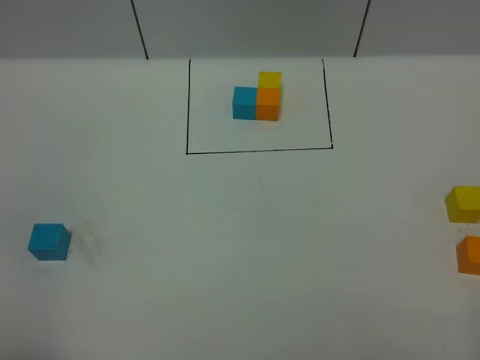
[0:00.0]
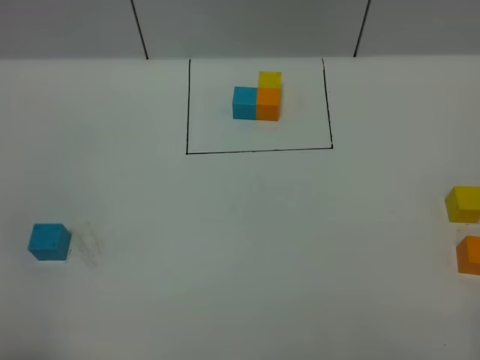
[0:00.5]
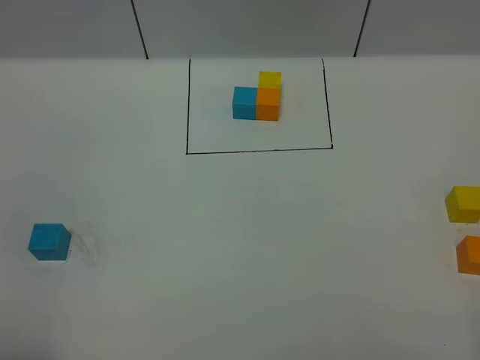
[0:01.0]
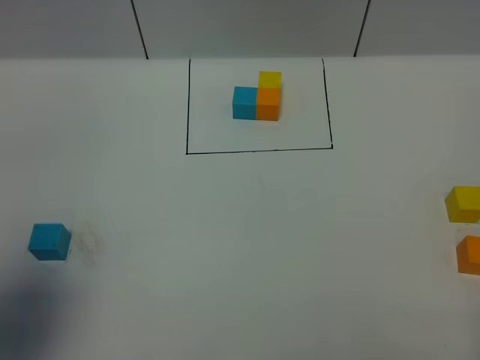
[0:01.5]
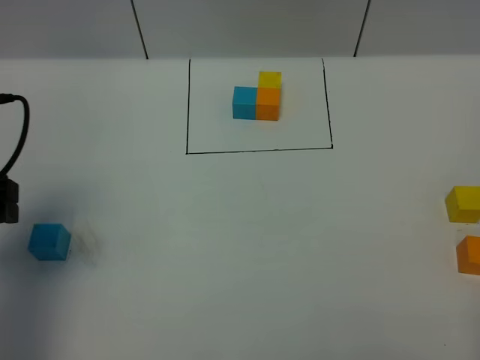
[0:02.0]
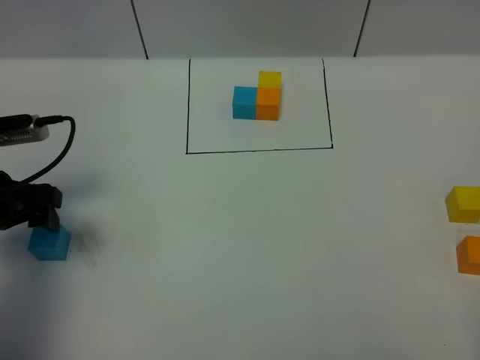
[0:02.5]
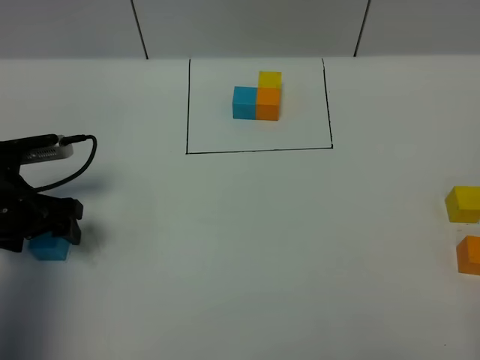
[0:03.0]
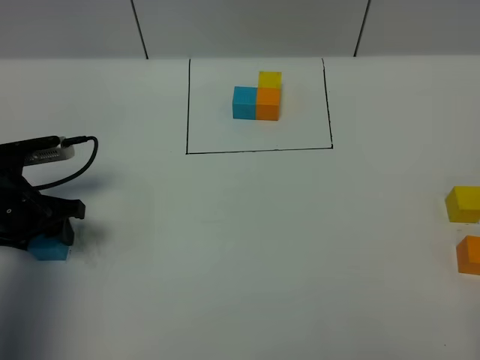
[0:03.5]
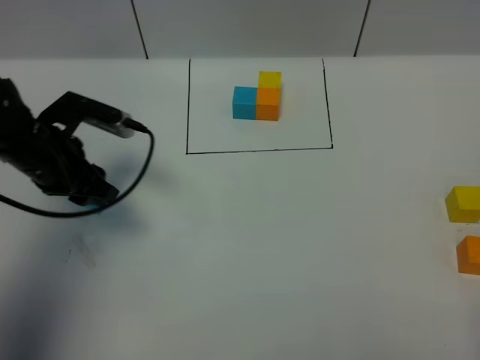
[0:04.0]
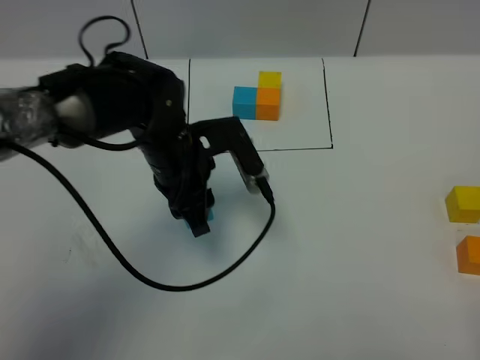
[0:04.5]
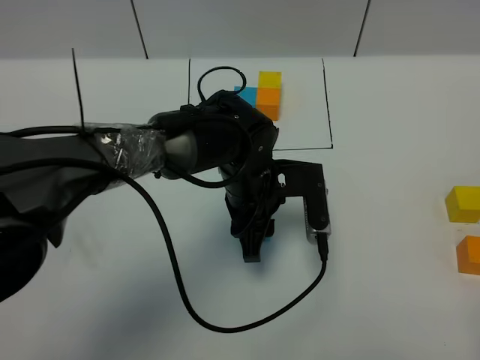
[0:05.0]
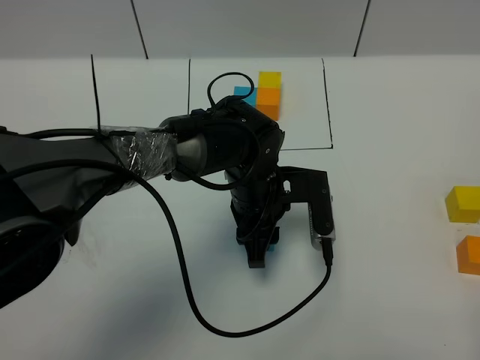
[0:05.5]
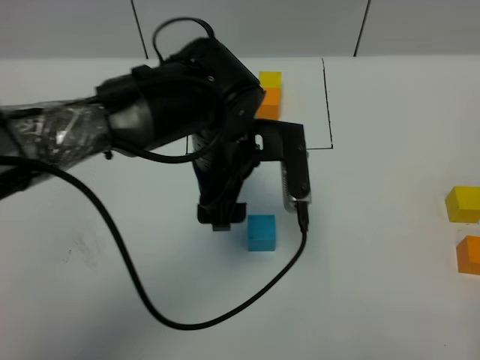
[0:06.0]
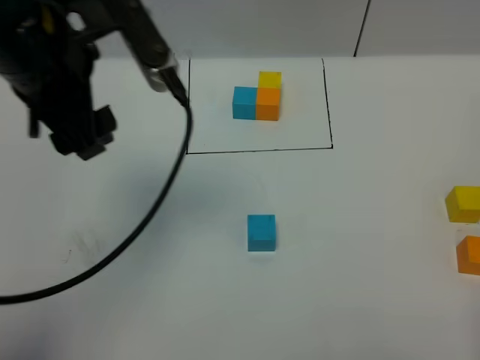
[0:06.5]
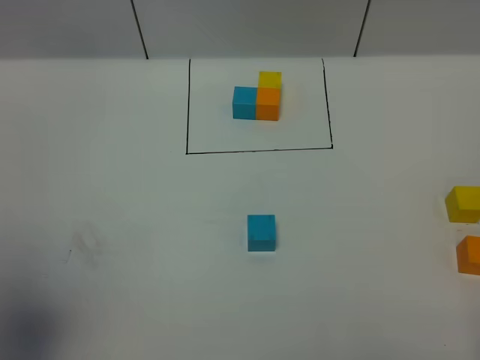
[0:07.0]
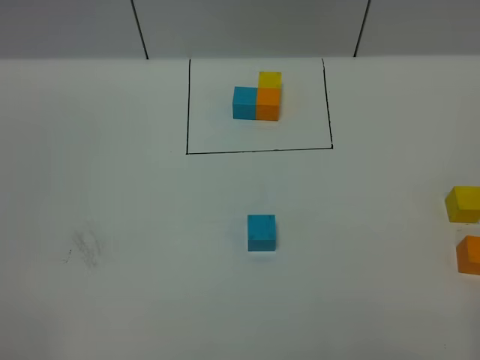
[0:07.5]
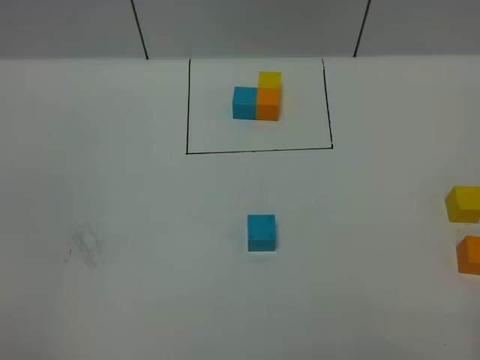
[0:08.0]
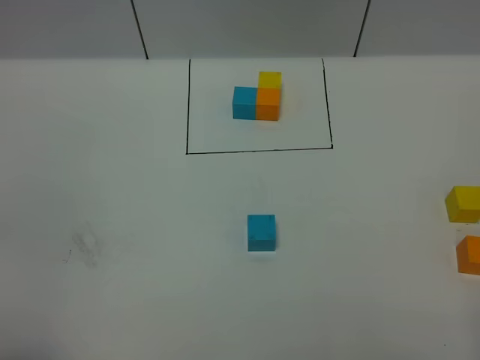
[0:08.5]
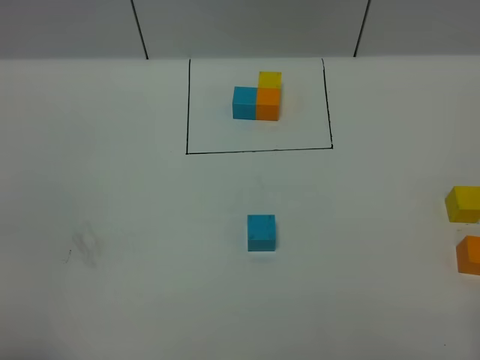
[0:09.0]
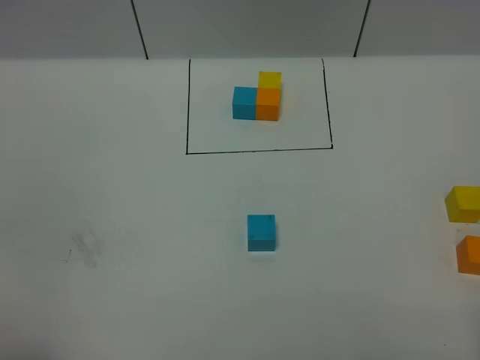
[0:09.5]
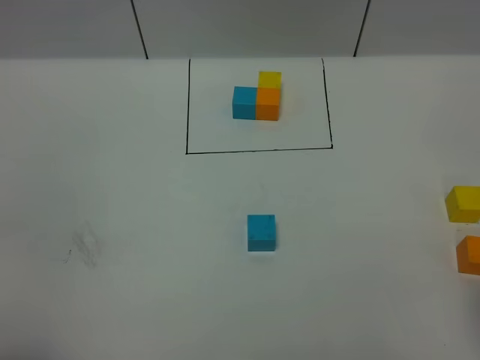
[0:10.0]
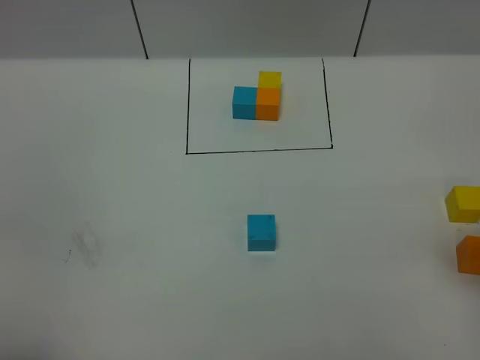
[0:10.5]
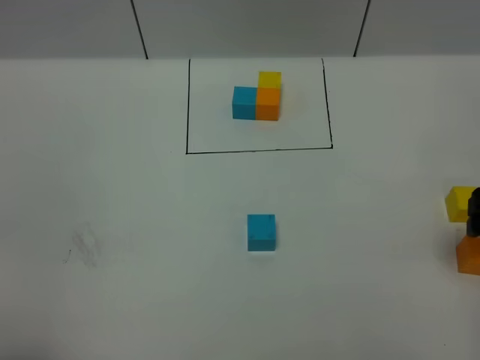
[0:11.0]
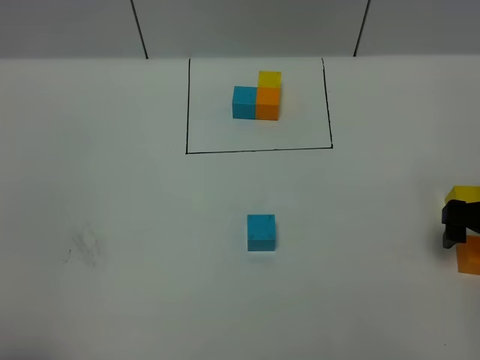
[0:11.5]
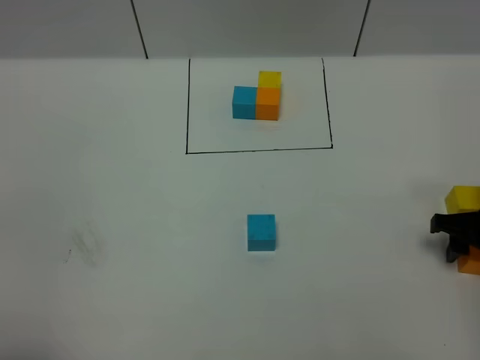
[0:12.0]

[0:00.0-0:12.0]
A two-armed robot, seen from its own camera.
Task of the whole recording: According to the building block template in front, assemble the scattered blocks together.
Step, 0:02.0 to 0:05.5: Put the blue cube in the center of the table.
0:00.0 to 0:02.0: The left gripper travels forward by about 25 cm.
0:02.0 to 0:04.0: The left gripper is displaced forward, downward and to the right by approximately 15 cm, and closes up.
0:04.0 to 0:06.0: The left gripper is displaced to the right by some 20 cm, and opens its fingers.
0:06.0 to 0:08.0: The left gripper is displaced backward and to the left by roughly 40 cm.
0:10.0 to 0:12.0: The right gripper moves downward and forward, roughly 25 cm, and opens and closes again.

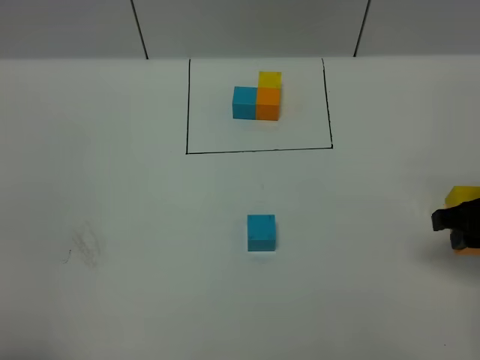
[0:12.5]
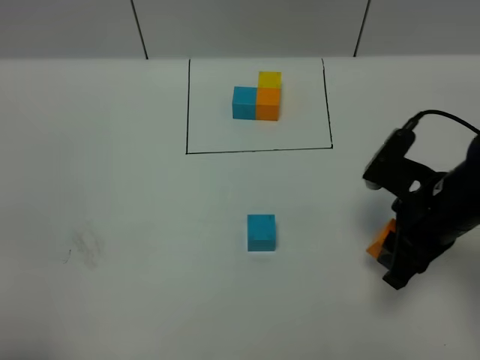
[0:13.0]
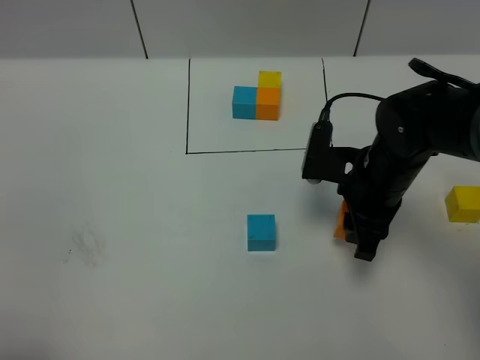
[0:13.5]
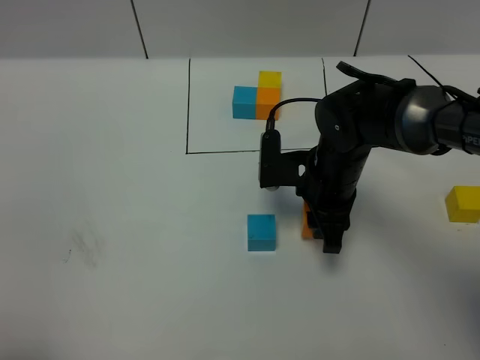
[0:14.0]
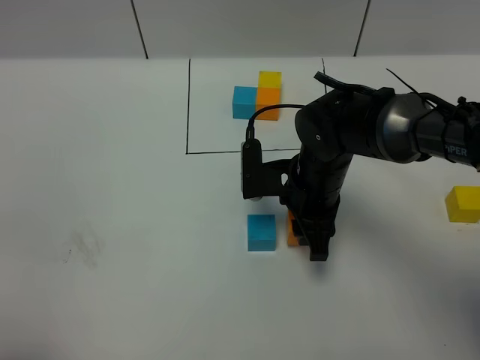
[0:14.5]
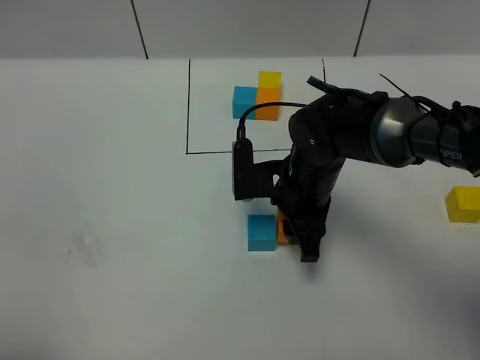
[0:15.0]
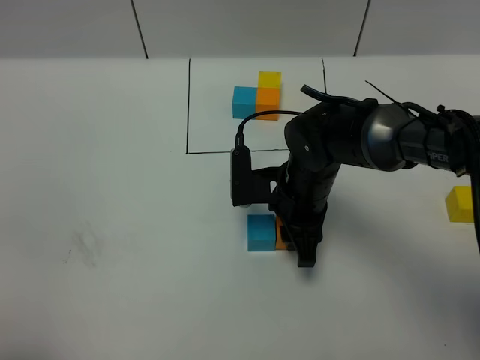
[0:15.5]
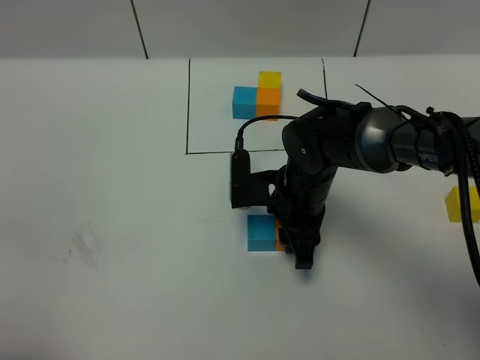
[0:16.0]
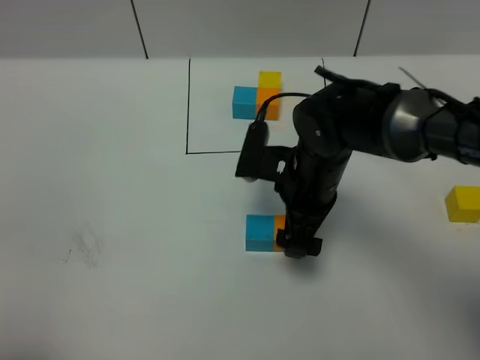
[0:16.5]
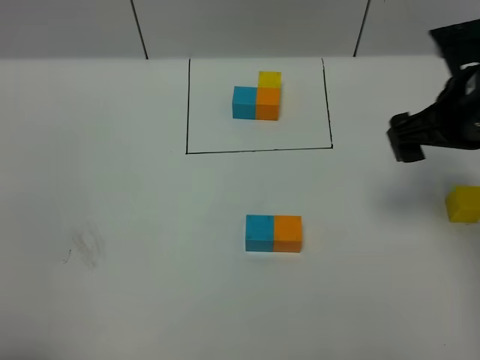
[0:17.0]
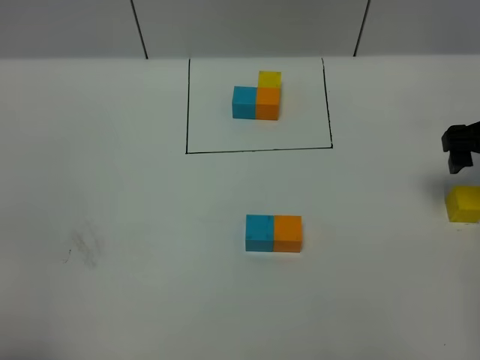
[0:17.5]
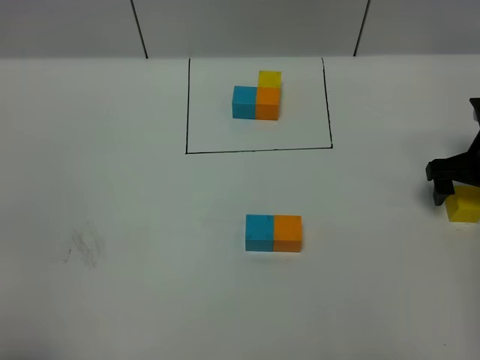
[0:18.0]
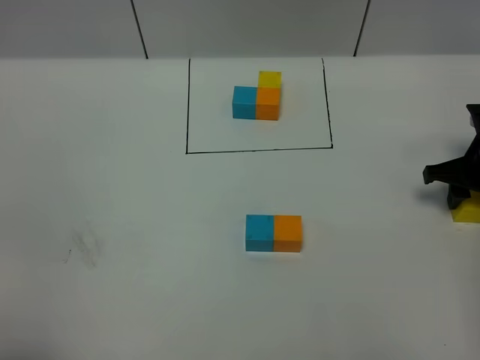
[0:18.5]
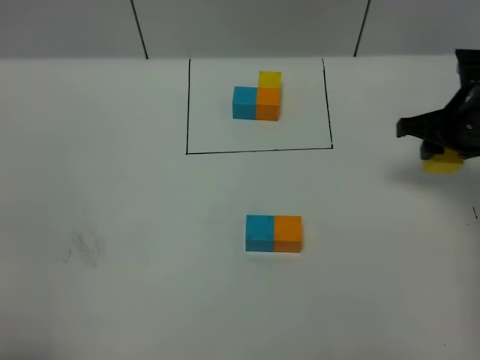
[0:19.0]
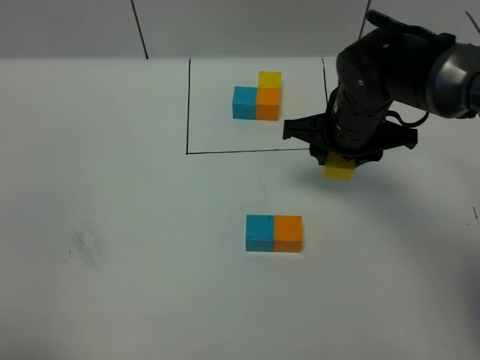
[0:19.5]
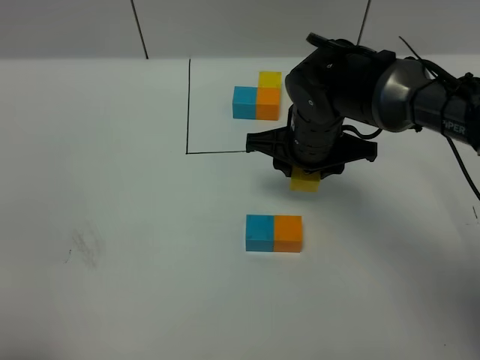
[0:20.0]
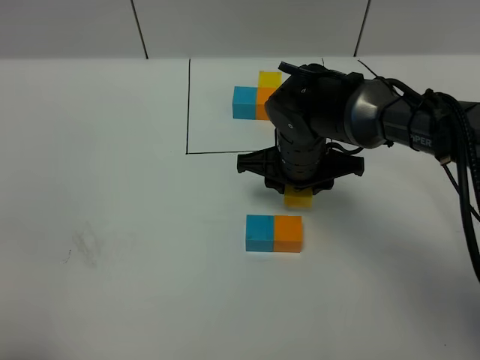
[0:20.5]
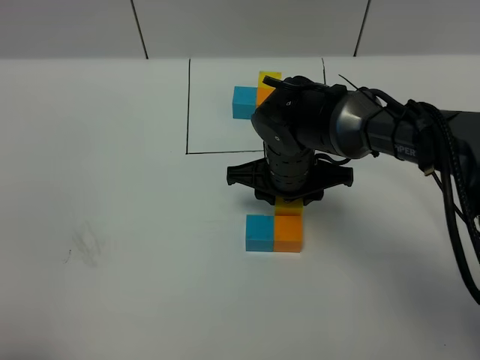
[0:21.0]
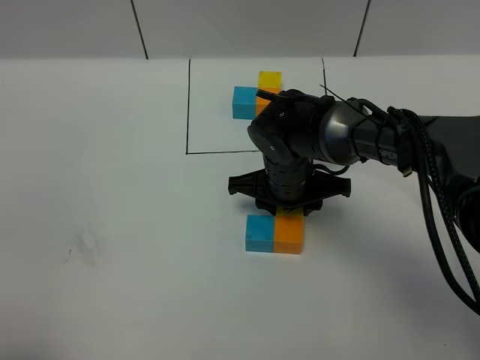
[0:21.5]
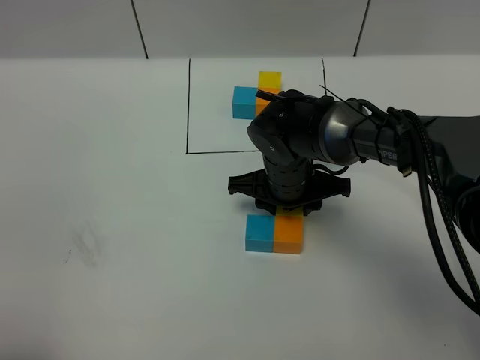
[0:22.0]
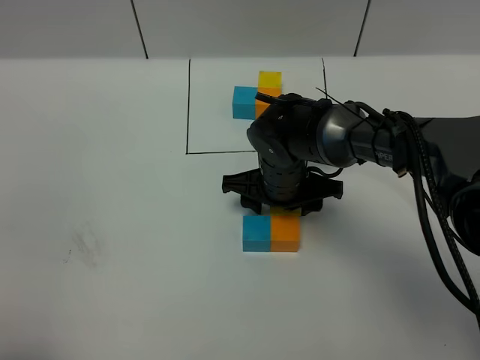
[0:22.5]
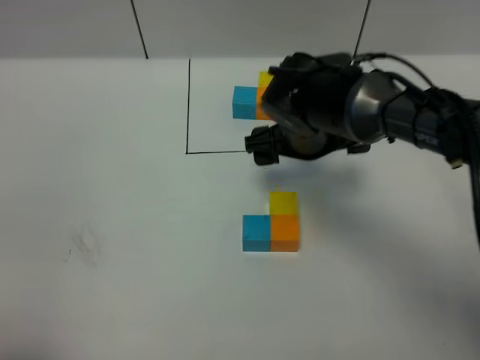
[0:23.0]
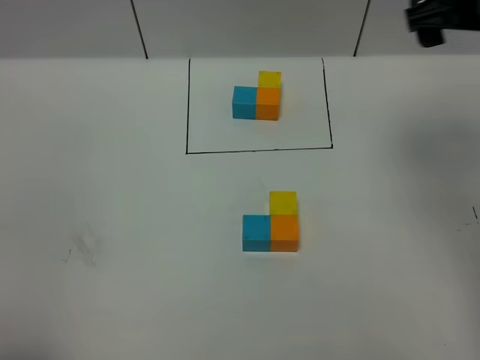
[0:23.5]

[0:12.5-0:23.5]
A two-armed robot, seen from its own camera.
Task of the whole recording: According to the building block template in front, assemble the scattered blocks together.
Step, 0:12.5 to 0:16.0: Put the orange cube on the right of the blue cube.
Step, 0:16.5 to 0:22.5: Put the yellow cube on the behind of the orange cube.
0:12.5 to 0:14.5: The right gripper goes about 20 cm to the left.
0:14.5 to 0:16.0: There are only small adjustments of the grippers.
0:16.0 to 0:18.0: The right gripper is displaced to the right by approximately 25 cm, and opens up.
0:18.0 to 0:20.0: The right gripper travels to the left by roughly 25 cm, and closes.
0:20.0 to 0:21.5: The right gripper moves downward, approximately 5 cm.
0:21.5 to 0:23.5: The right gripper heads upward and to the right, covering roughly 30 cm, and opens up.

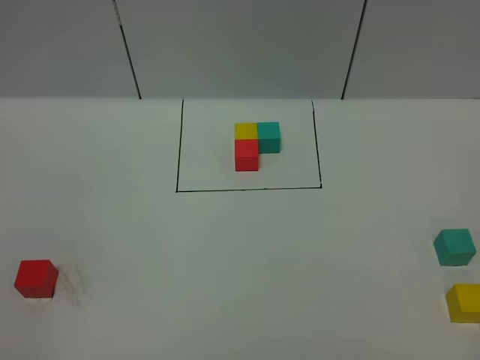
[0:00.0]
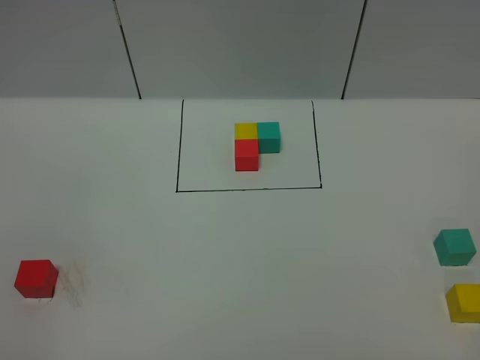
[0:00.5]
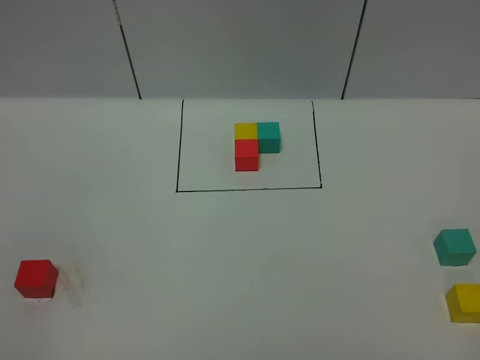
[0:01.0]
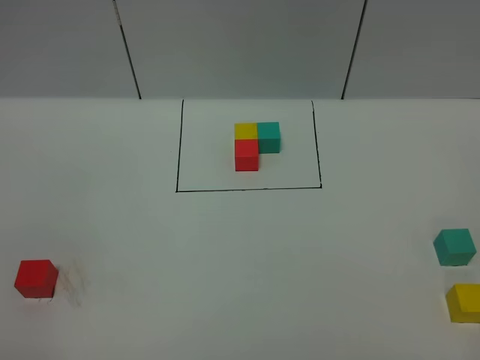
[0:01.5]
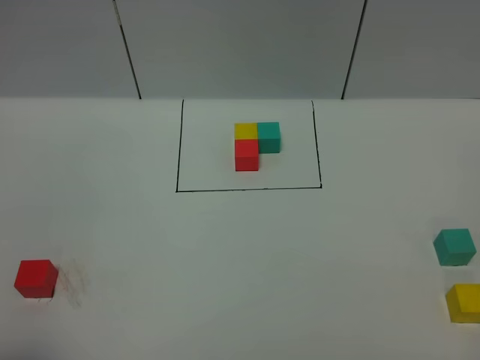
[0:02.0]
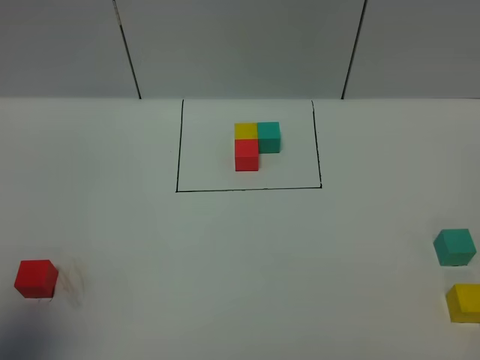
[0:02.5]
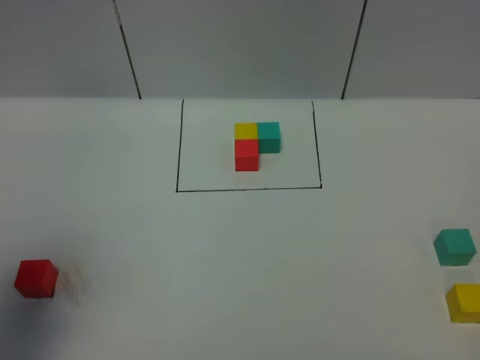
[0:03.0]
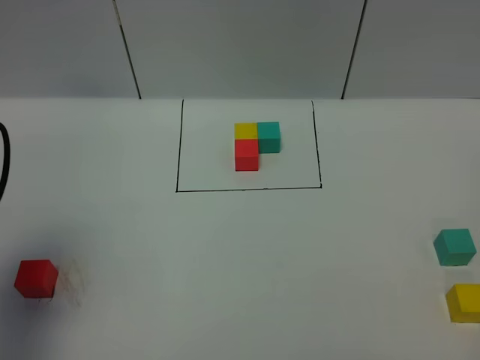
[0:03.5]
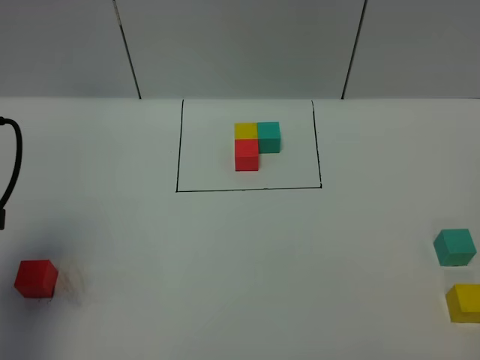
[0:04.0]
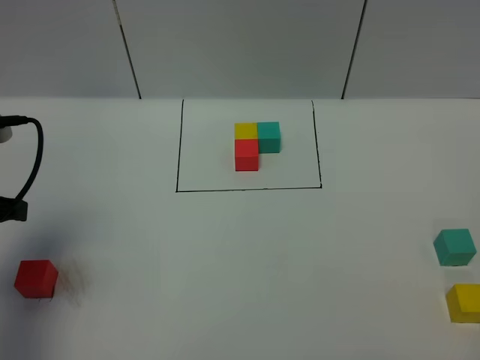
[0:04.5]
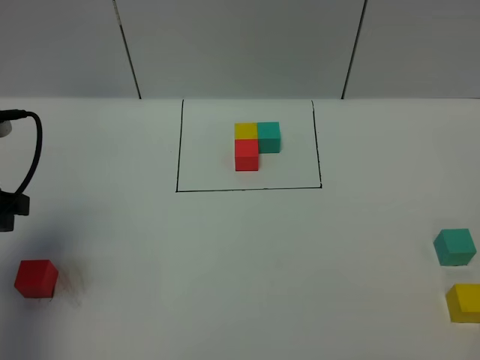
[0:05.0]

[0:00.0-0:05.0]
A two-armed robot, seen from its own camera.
Task of the whole recording: According to the building block template in front, assemble the scattered blocks together.
0:00.0 to 0:02.5: The left gripper moves forward, approximately 15 cm.
0:02.5 to 0:05.0: The left gripper travels forward and downward by about 15 cm, and opens up.
